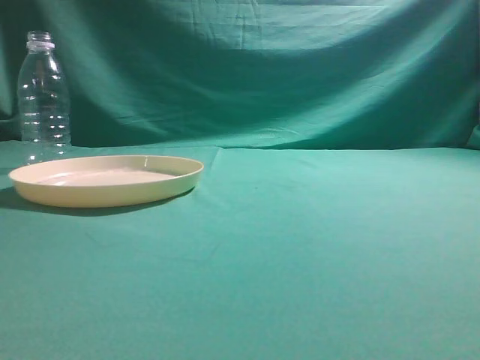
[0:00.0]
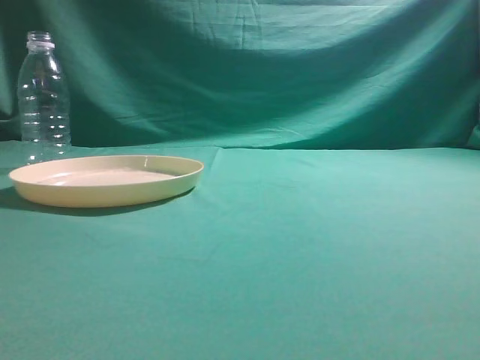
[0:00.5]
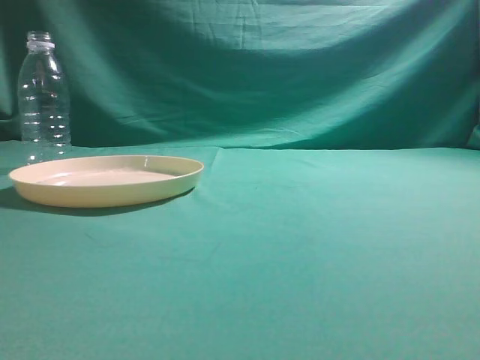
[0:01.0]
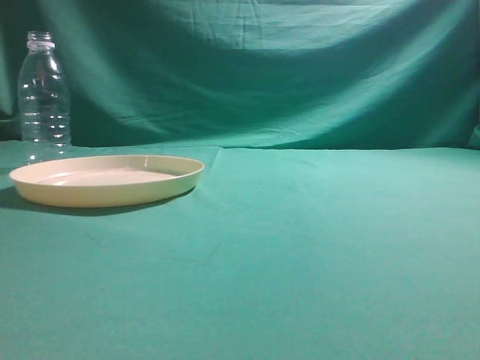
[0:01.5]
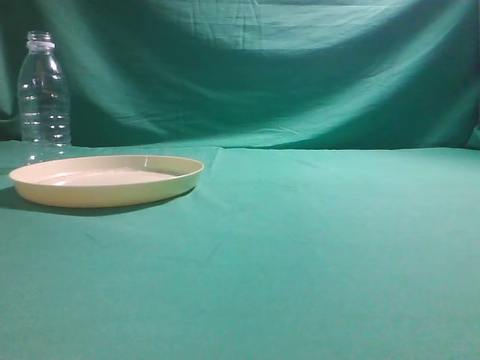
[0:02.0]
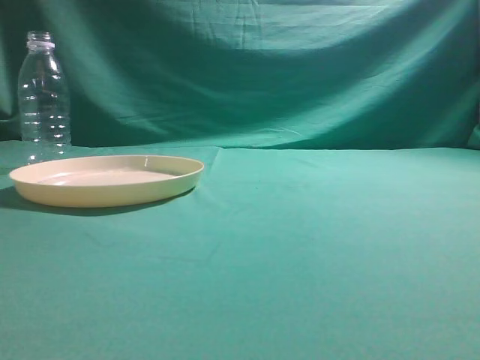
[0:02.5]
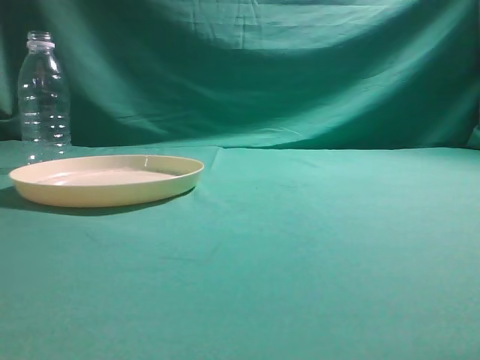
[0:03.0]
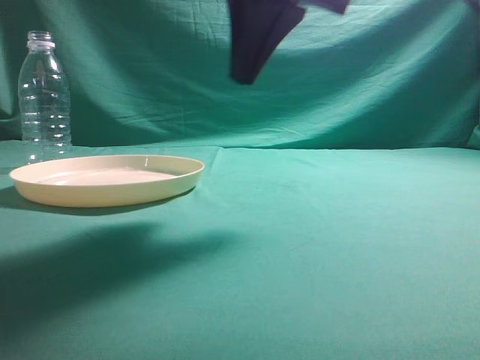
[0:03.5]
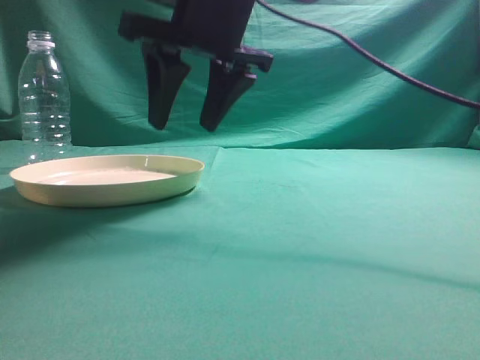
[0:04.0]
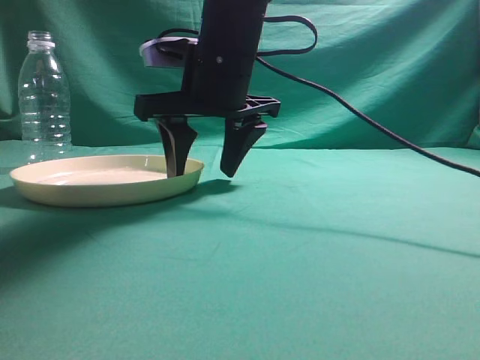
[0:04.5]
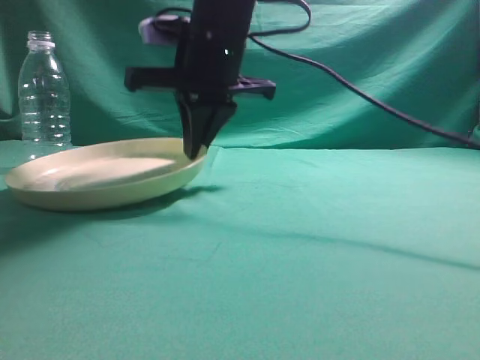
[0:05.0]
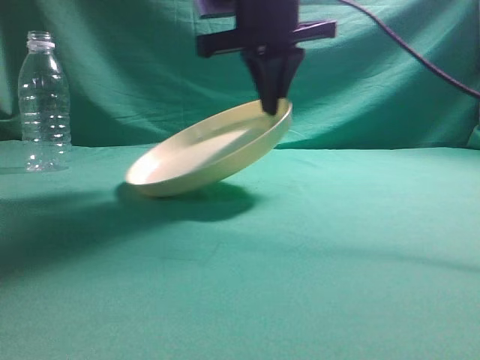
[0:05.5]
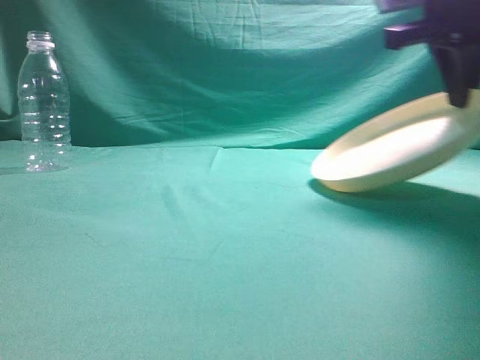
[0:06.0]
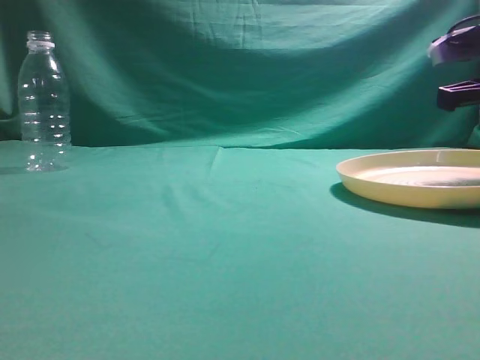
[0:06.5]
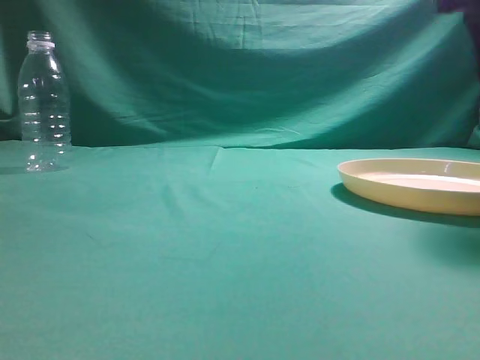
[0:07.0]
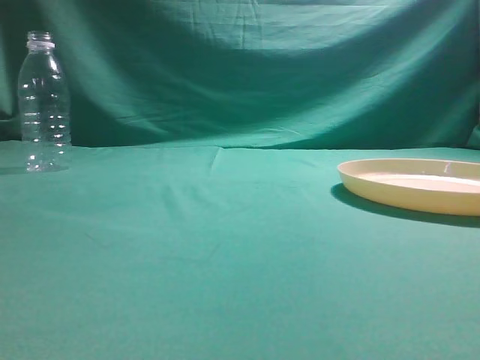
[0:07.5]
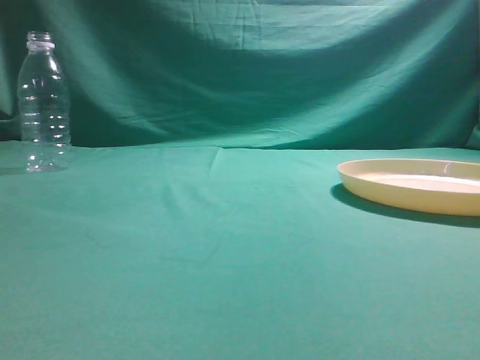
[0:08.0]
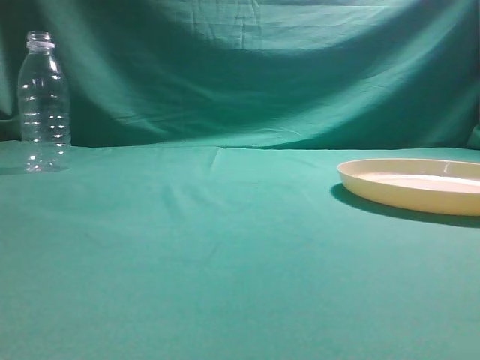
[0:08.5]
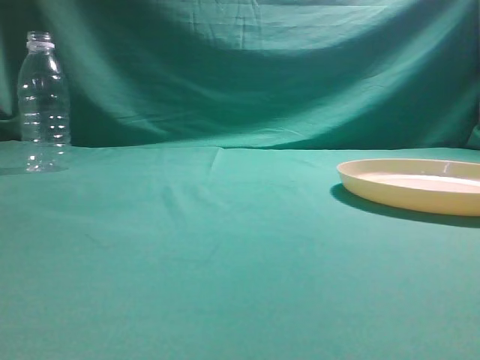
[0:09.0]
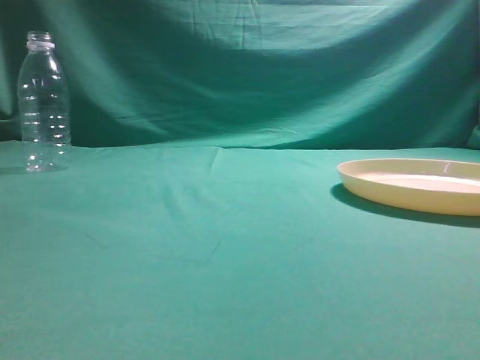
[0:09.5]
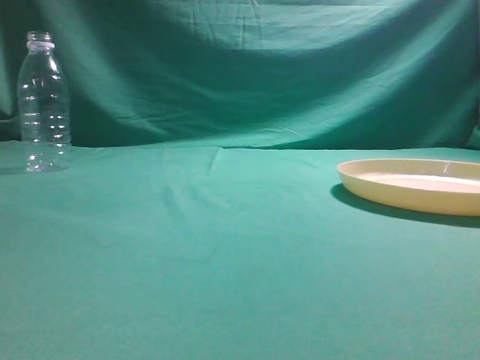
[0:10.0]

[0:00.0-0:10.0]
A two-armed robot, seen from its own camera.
Step, 0:00.0 to 0:05.0: Pick the container that can hold fruits.
Step, 0:05.5 to 0:07.0: Move the picked object to the right side of the table.
0:02.0 to 0:04.0: The right gripper is displaced to the left and forward by about 40 cm, and opens up.
0:04.0 to 0:06.0: The right gripper is displaced to the right by approximately 20 cm, and closes its fingers.
0:06.0 to 0:08.0: The right gripper goes about 35 cm backward and upward, and opens, then closes again.
